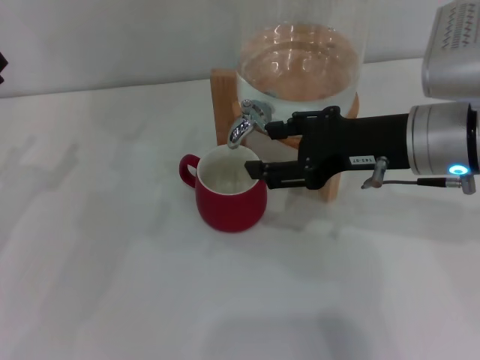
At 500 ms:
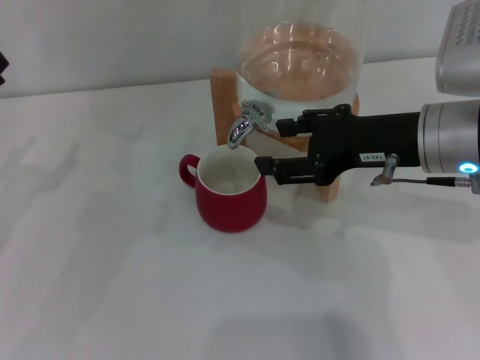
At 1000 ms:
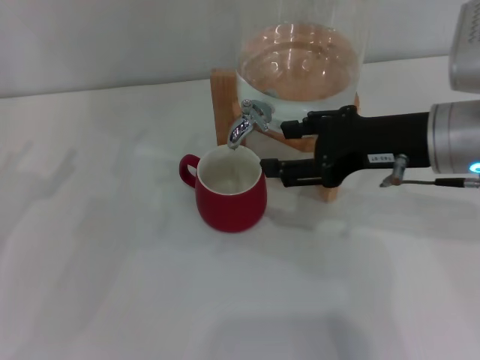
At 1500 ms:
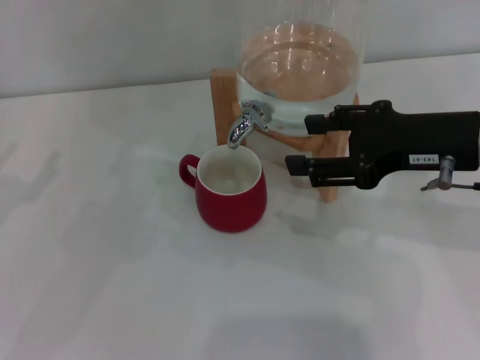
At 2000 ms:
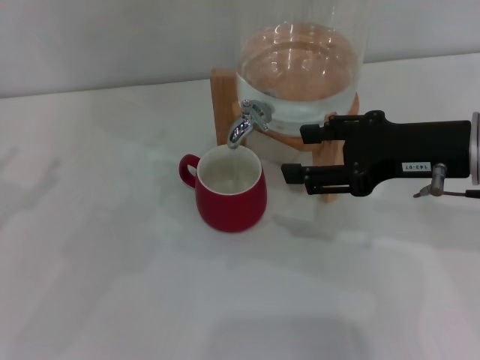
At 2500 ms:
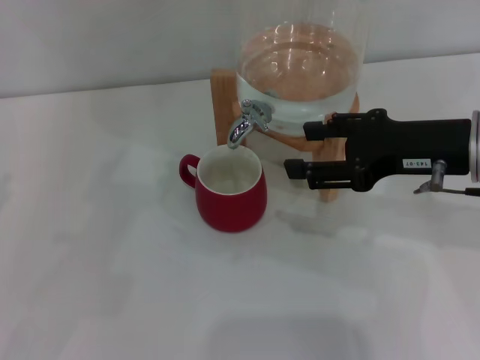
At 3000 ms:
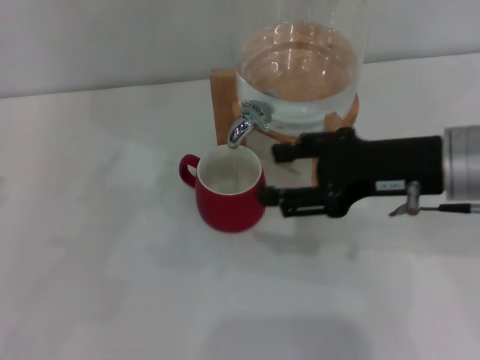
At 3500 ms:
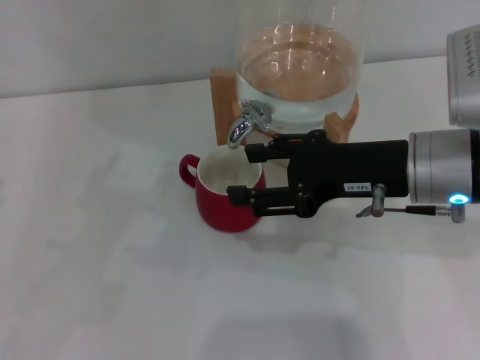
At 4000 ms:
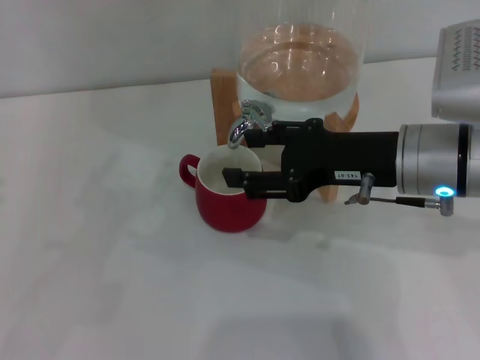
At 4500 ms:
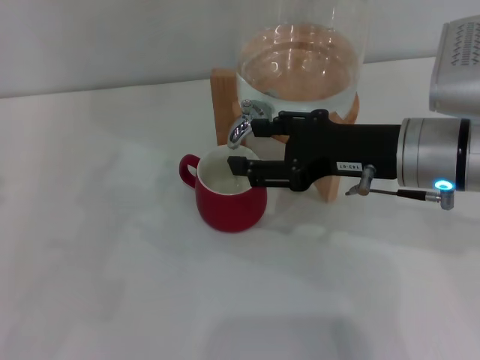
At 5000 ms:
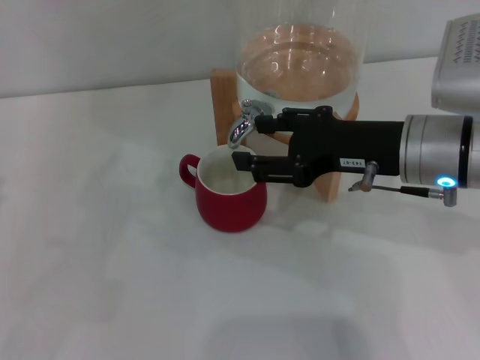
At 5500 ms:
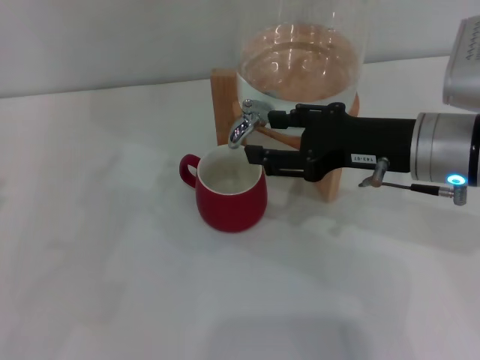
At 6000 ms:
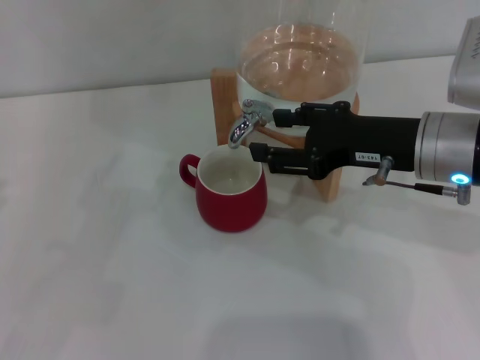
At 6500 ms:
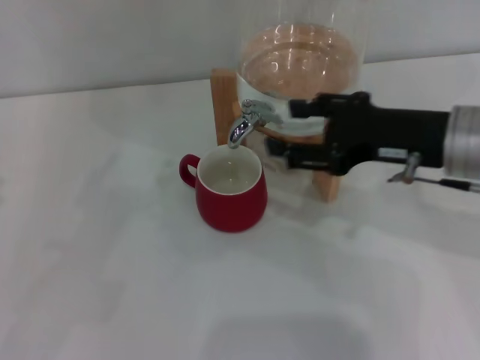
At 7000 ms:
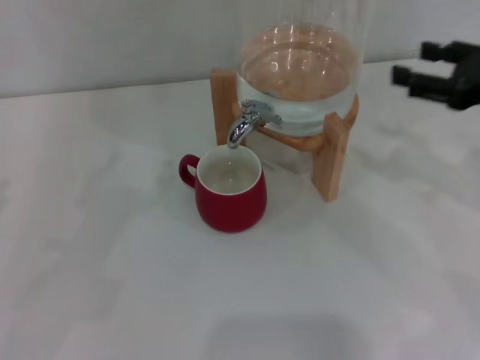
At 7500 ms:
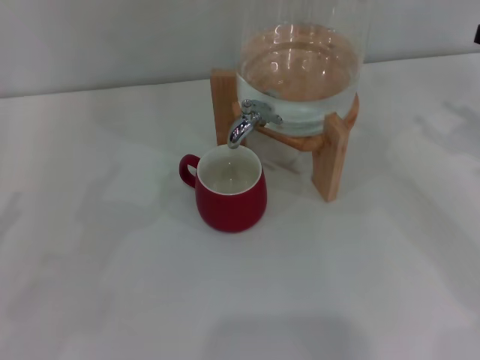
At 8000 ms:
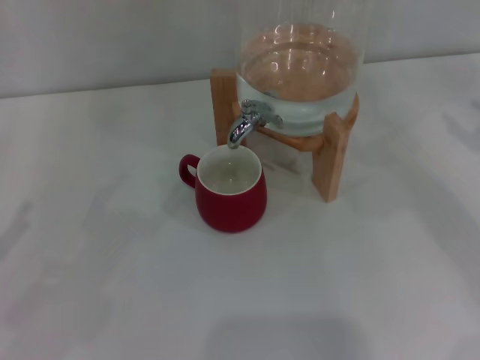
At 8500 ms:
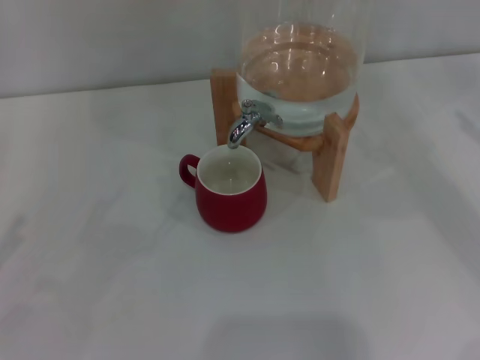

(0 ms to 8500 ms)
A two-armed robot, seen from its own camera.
Task of the whole recording: the left gripper pick up the red cup and place it horizontally under the faucet, the right gripper turn on the faucet to fill the cup, and then turn off the faucet.
Step, 0 ms - 3000 ms: Open the dispenser valve and fill the cup with water with the right gripper.
Step, 3500 ms - 6000 ms: Close the dispenser valve with the right gripper.
0 ms - 2000 ms: The left gripper shifts by about 5 cm.
2000 ms - 4000 ms: The left gripper ends up roughly 5 cm from where it was; the right gripper ends up roughly 5 cm from where it was.
4000 ms - 6500 ms: The grippers stay close to where they were, moving slightly.
6500 ms - 8500 ms: The left gripper shifts by approximately 5 cm. Meanwhile the right gripper shifts approximately 20 cm to the right.
